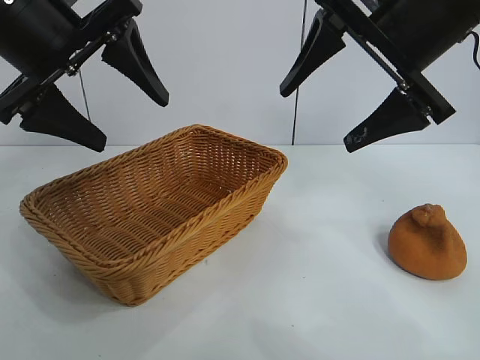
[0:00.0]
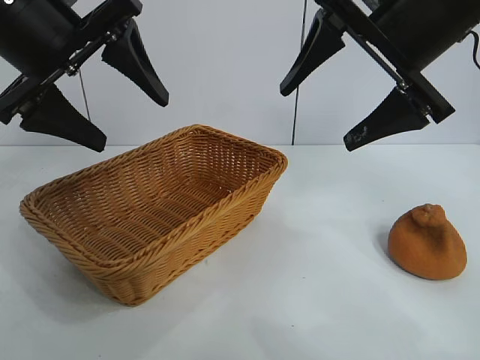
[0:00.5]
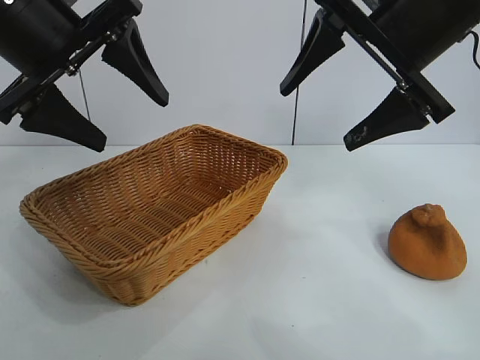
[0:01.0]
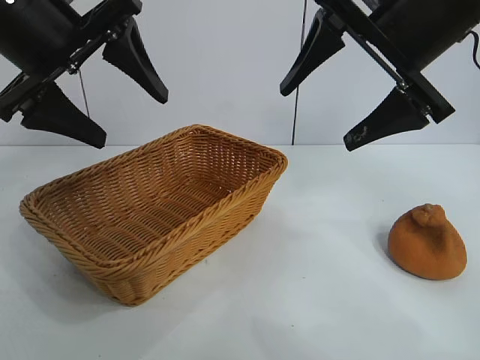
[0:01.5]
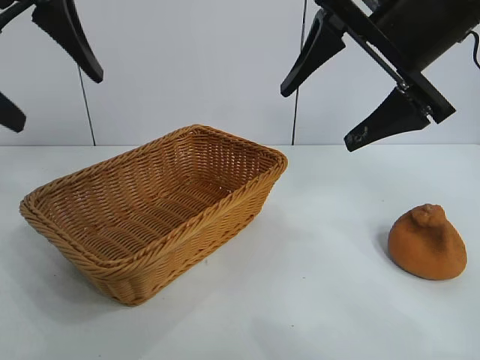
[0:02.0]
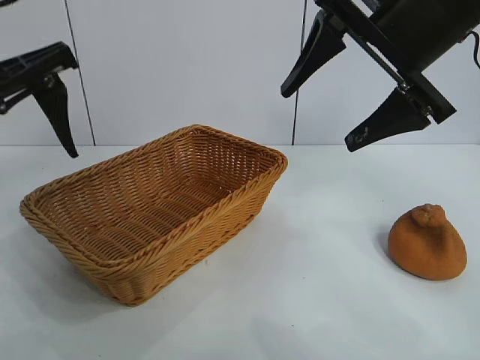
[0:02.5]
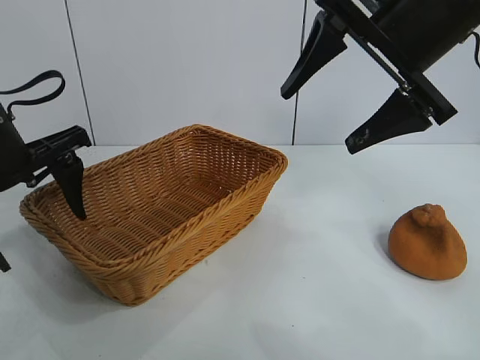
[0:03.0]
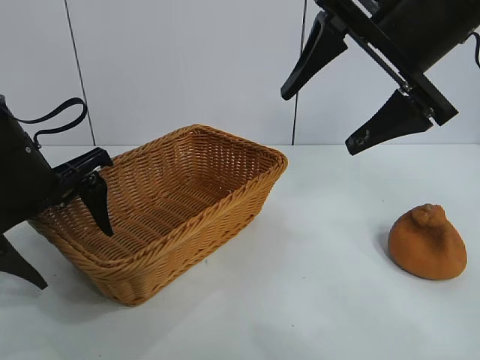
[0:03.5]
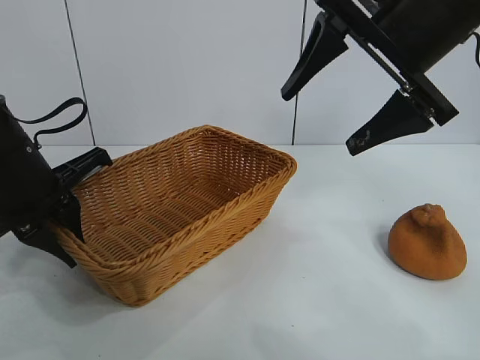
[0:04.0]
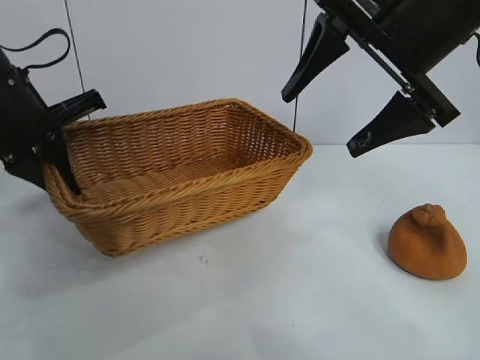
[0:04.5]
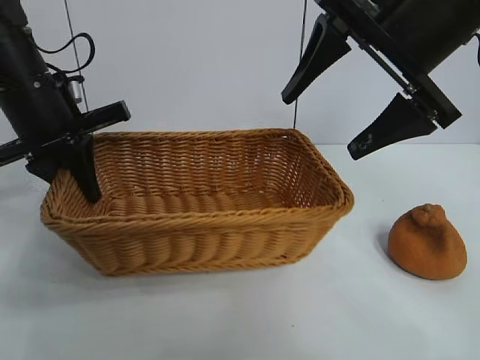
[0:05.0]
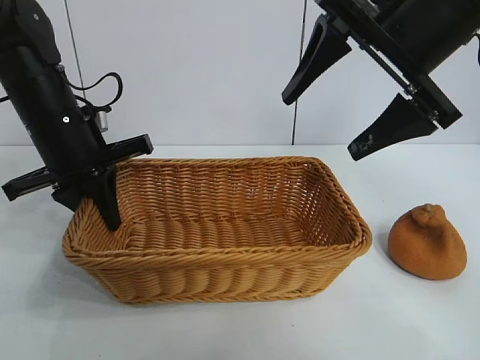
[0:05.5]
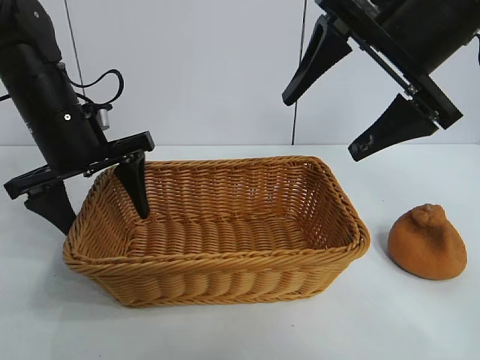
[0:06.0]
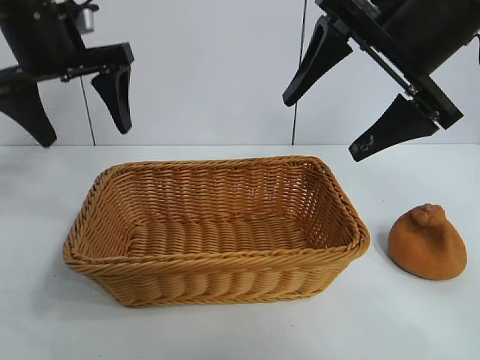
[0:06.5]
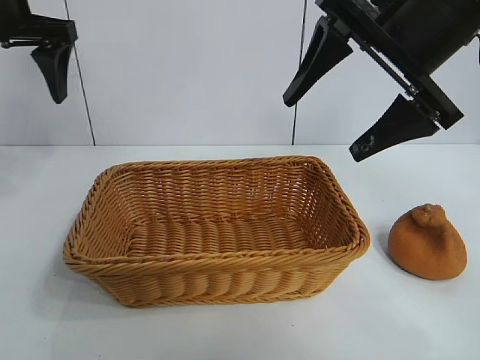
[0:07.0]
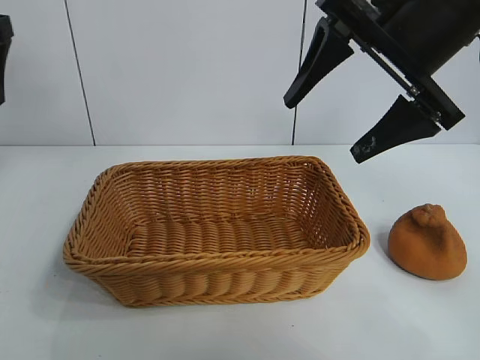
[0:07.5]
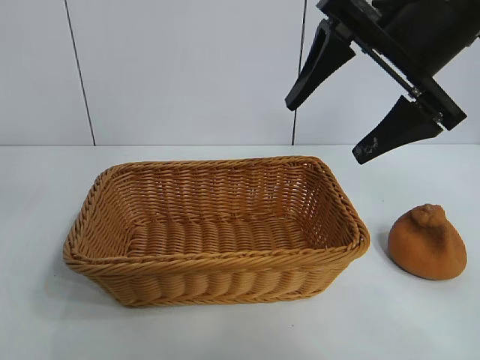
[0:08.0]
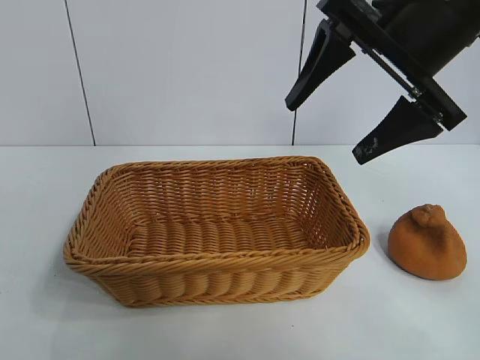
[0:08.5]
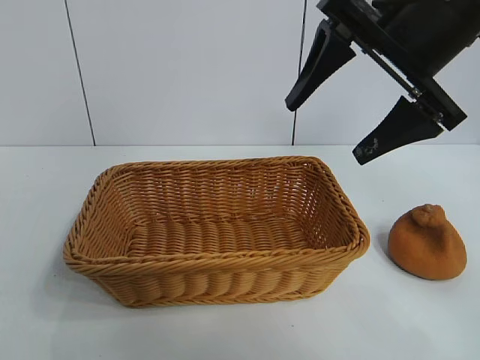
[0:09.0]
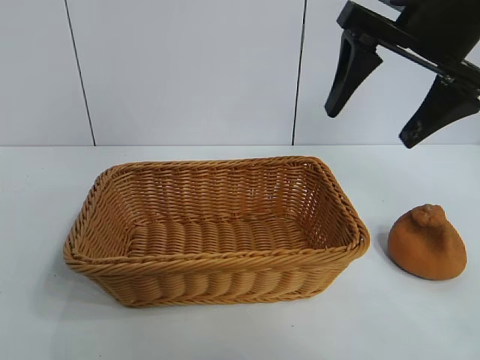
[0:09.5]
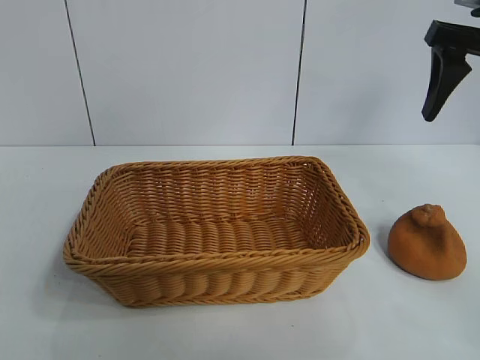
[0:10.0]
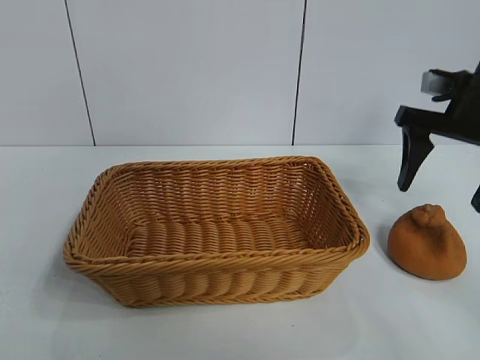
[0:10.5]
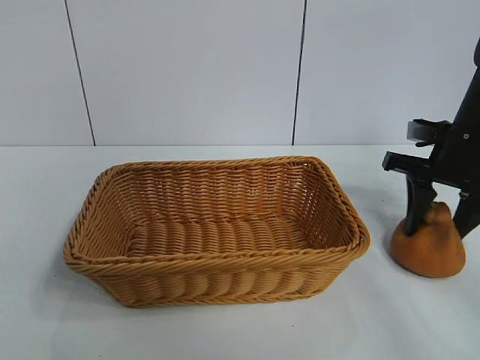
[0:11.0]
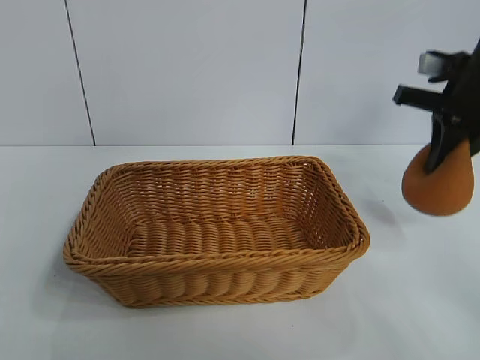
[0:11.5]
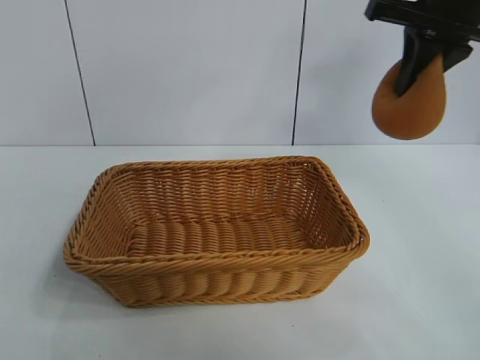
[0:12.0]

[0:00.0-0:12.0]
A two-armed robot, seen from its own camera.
Task of the whole recording: pick up the orange and put it into the basket.
Step, 0:01.5 to 0:03.5: Grasp the basket with left gripper.
Step, 0:04.0 to 0:06.0: Place the basket in the center of view with left gripper.
Step, 0:06.5 to 0:11.0: Grasp the orange with right gripper.
